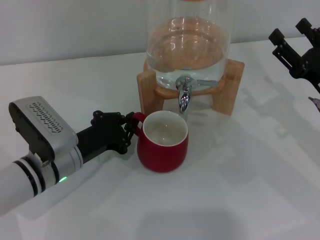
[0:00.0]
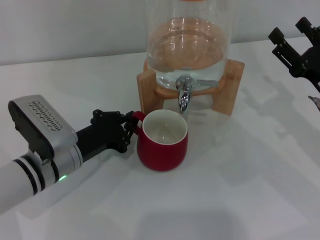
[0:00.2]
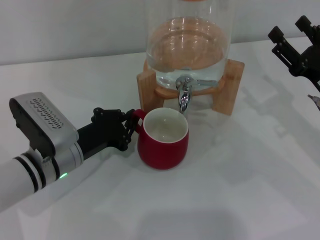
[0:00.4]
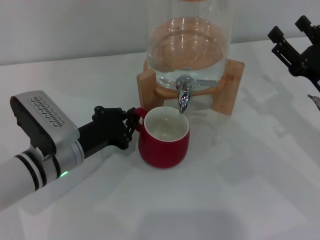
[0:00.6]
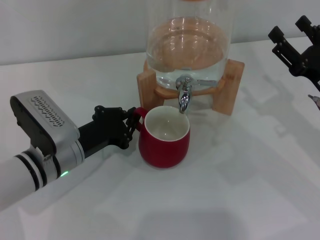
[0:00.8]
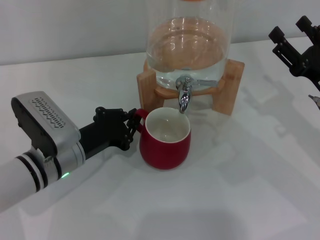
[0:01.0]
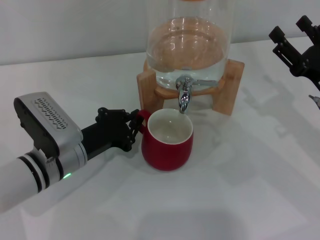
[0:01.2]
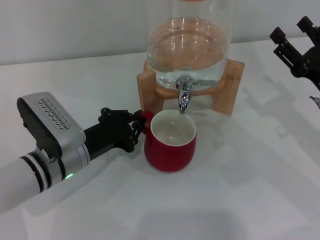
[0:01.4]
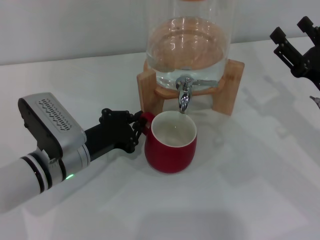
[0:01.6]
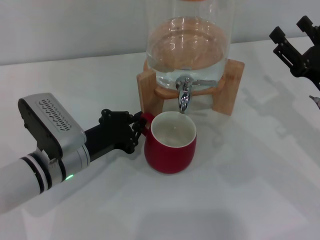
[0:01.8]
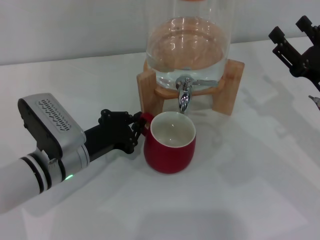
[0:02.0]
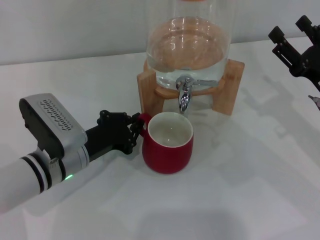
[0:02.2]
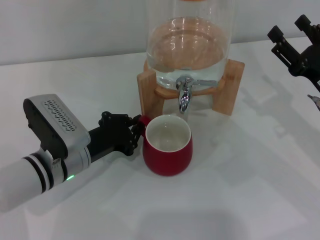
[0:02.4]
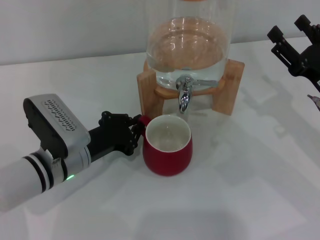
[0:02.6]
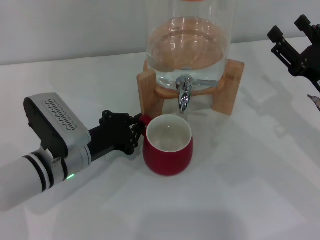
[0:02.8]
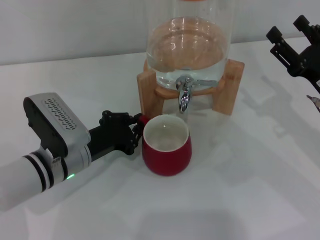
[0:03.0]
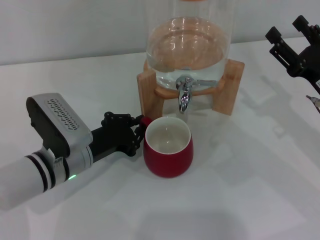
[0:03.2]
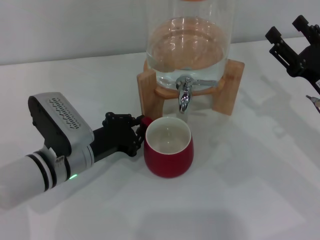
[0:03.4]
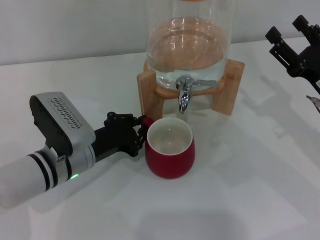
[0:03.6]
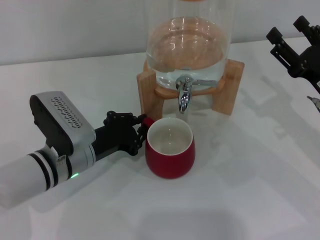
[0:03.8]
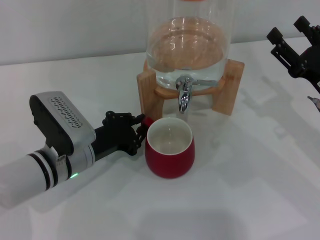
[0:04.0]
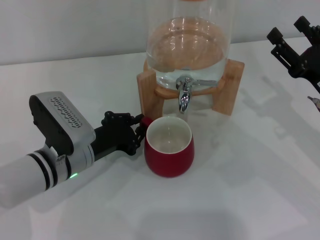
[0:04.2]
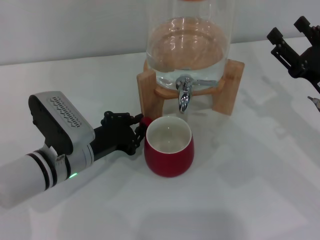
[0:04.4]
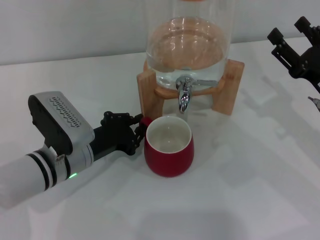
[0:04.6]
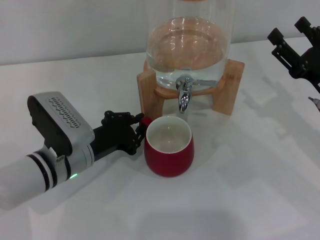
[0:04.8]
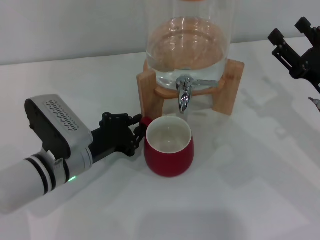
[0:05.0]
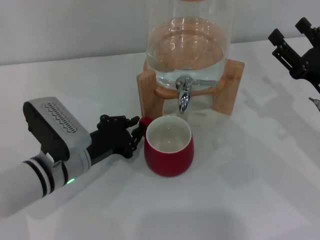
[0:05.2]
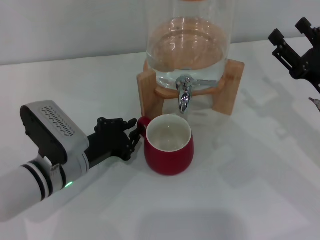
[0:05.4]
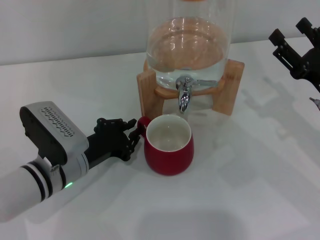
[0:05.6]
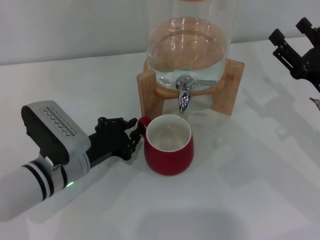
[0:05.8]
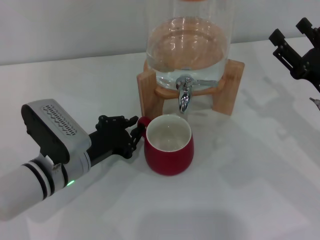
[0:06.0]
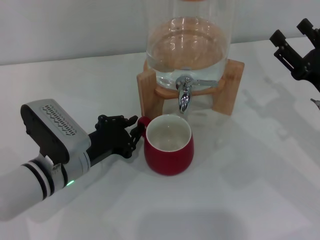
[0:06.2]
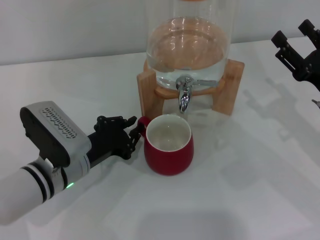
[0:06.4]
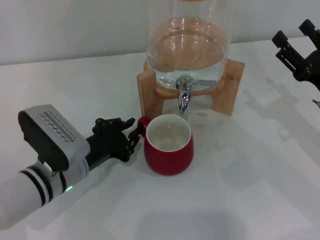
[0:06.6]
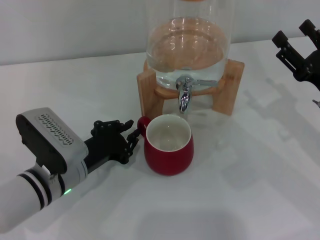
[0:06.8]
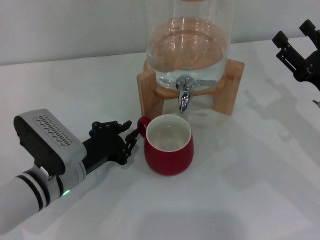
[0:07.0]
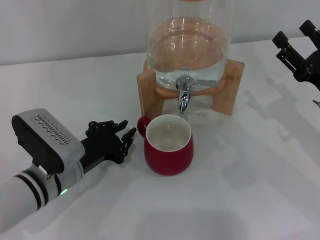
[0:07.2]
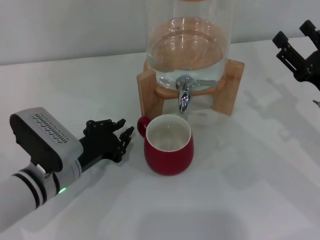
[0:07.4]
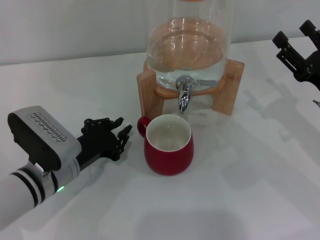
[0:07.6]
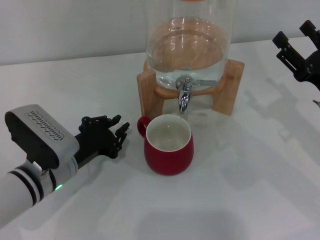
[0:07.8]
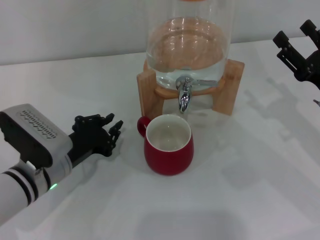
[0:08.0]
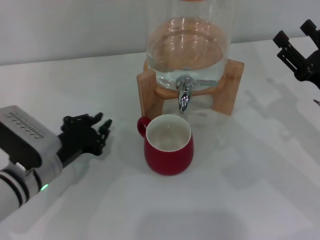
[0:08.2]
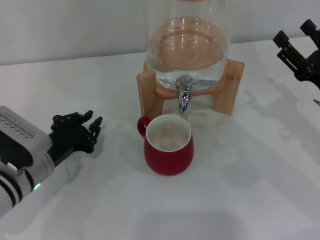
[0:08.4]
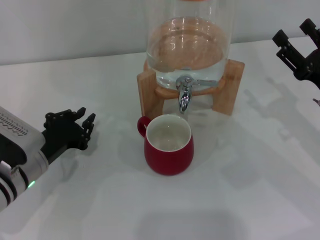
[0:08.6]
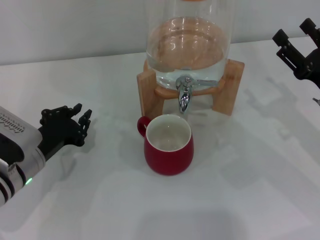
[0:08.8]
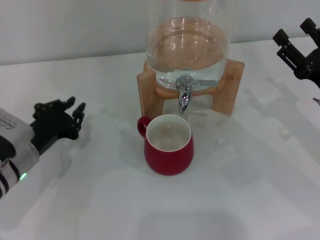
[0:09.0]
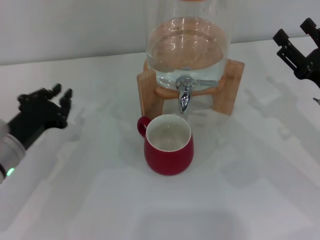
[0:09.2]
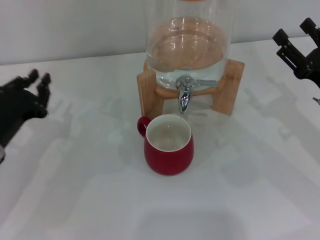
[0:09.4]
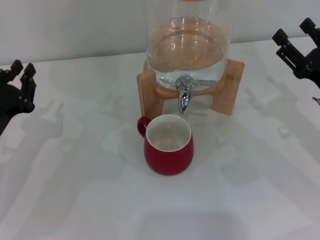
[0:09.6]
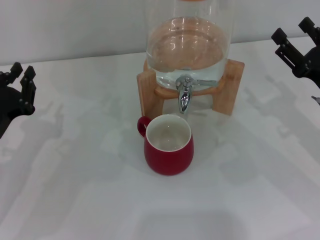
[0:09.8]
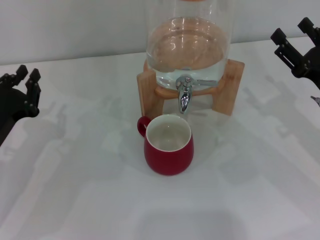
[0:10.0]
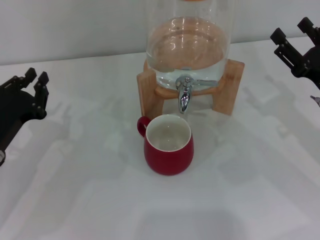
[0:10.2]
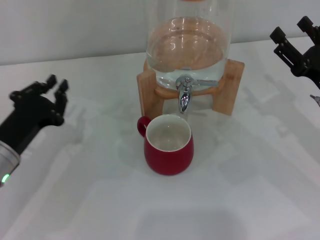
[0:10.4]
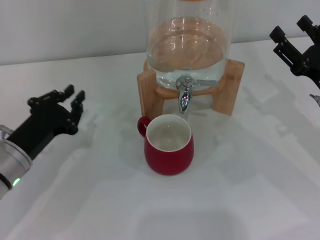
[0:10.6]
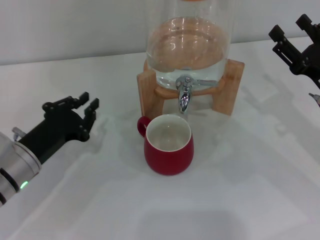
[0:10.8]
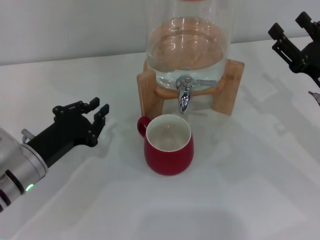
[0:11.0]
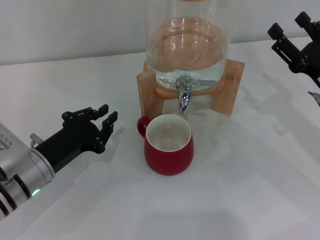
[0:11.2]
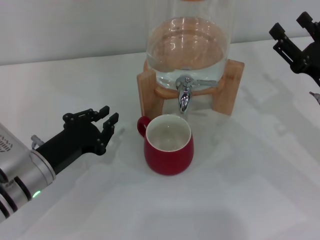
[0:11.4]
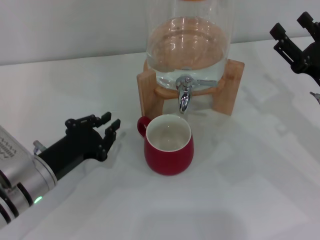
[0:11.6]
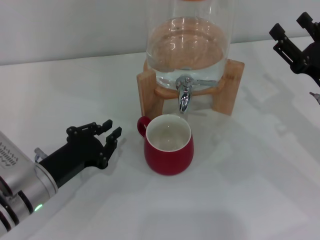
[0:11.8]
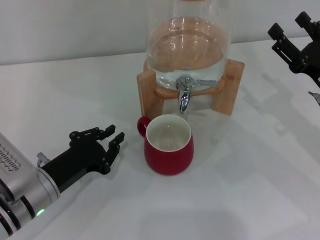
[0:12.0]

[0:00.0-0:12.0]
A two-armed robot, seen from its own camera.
Task of the whole recording: the left gripper pick up the red cup and place it horizontally under the faucet, the right gripper turn on the faucet to fill the cup, and then turn off the faucet.
Step, 0:00.0 to 0:07.6: Move the cup beneath the water dispenser nozzle with the left gripper.
0:00.0 to 0:03.0: Both grippers stay put.
0:03.0 to 0:04.4: The two grippers keep their place.
0:04.4 to 0:07.6: There are only small adjustments of the grippers.
0:07.6 to 0:09.0: The left gripper ends up some 5 cm from where it was.
0:10.4 to 0:12.0: The left gripper moves roughly 5 cm.

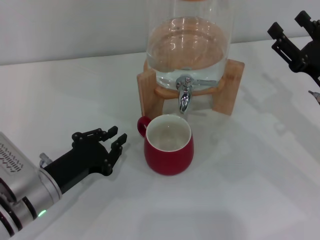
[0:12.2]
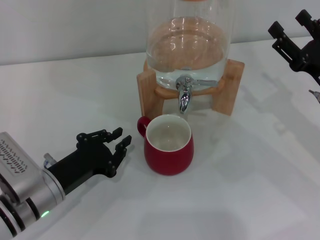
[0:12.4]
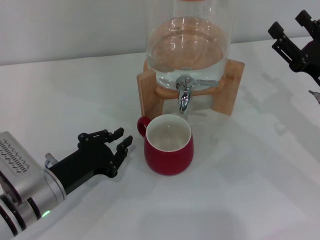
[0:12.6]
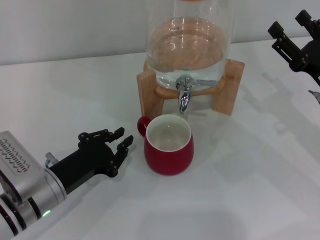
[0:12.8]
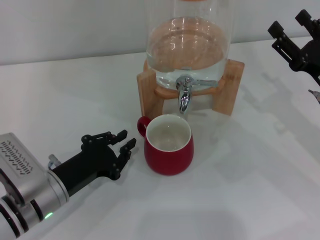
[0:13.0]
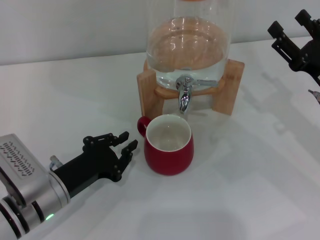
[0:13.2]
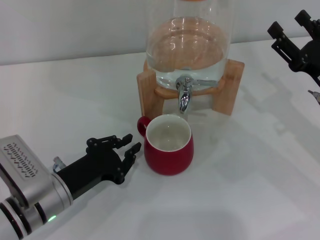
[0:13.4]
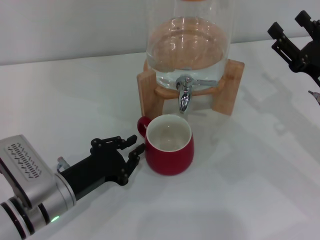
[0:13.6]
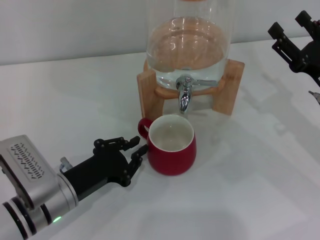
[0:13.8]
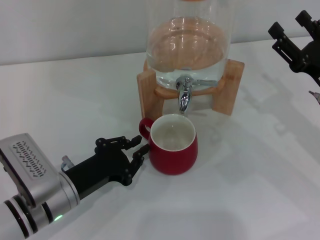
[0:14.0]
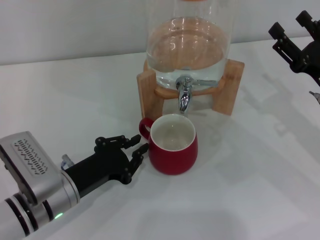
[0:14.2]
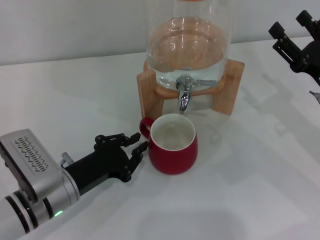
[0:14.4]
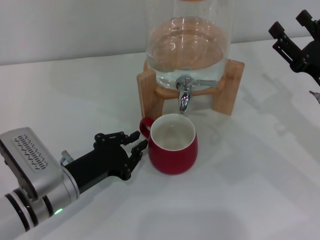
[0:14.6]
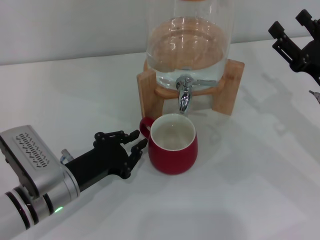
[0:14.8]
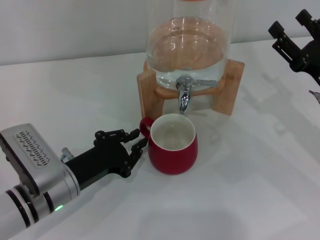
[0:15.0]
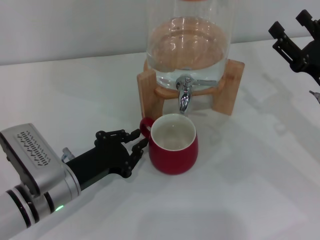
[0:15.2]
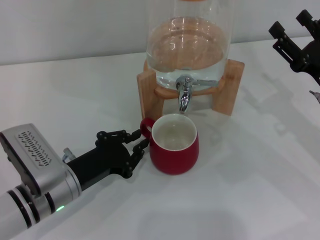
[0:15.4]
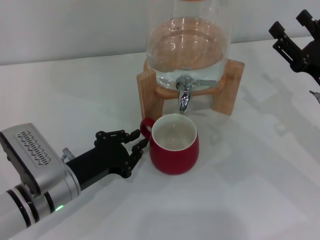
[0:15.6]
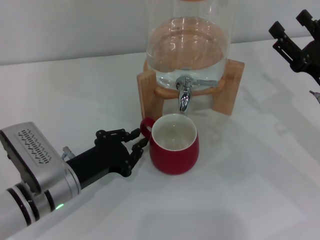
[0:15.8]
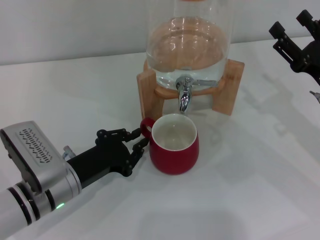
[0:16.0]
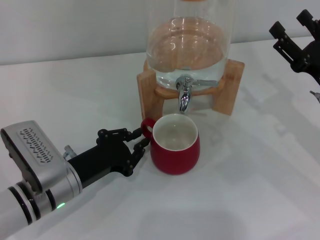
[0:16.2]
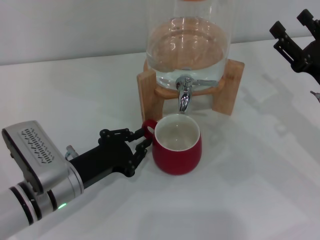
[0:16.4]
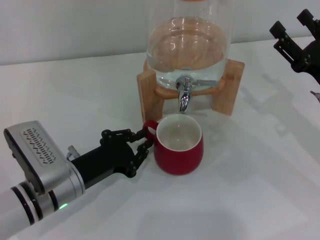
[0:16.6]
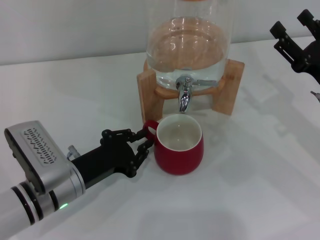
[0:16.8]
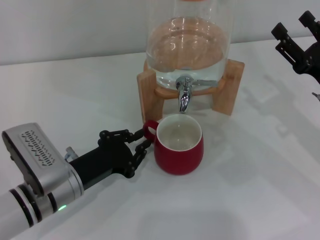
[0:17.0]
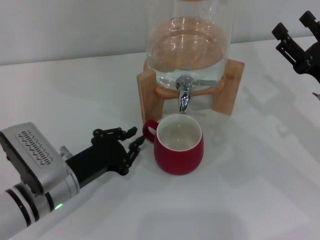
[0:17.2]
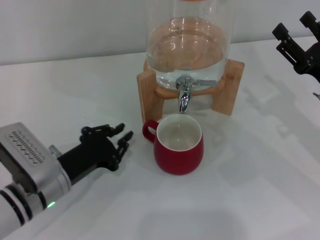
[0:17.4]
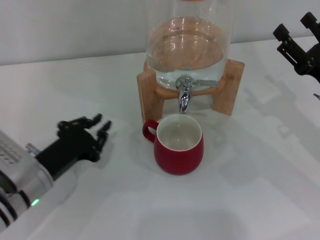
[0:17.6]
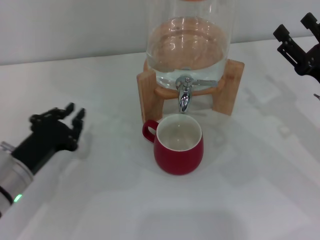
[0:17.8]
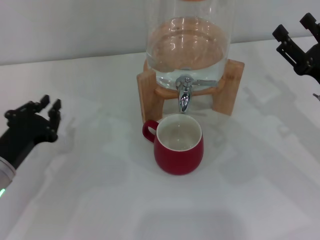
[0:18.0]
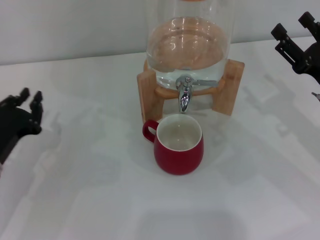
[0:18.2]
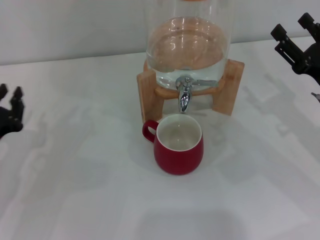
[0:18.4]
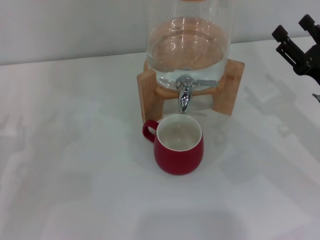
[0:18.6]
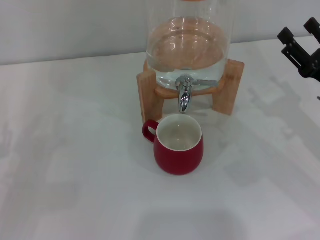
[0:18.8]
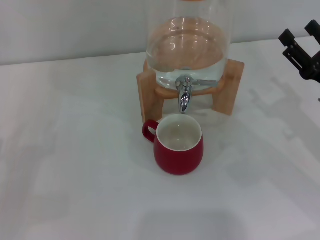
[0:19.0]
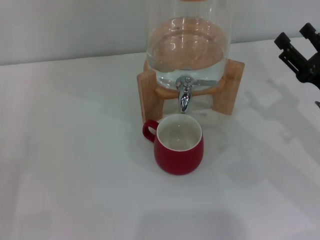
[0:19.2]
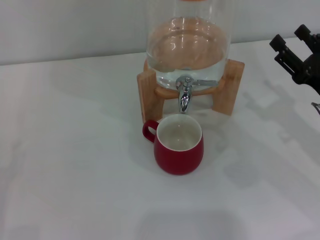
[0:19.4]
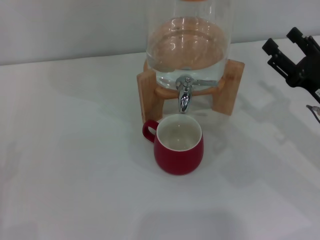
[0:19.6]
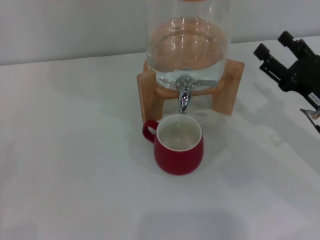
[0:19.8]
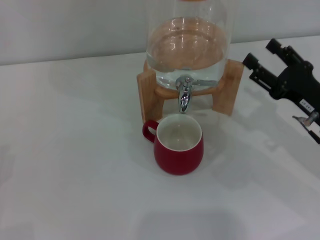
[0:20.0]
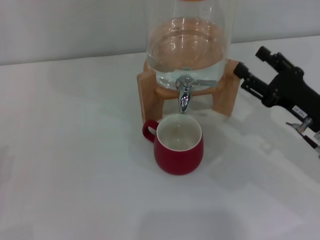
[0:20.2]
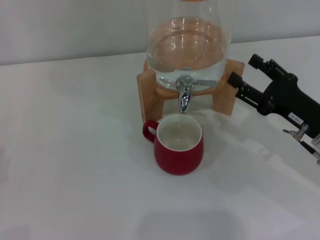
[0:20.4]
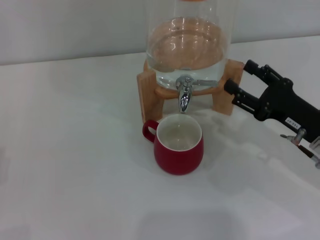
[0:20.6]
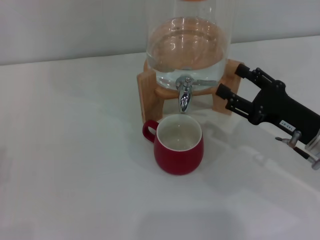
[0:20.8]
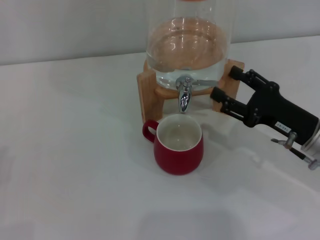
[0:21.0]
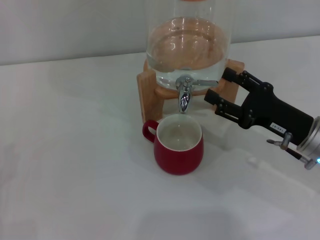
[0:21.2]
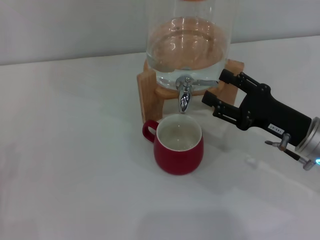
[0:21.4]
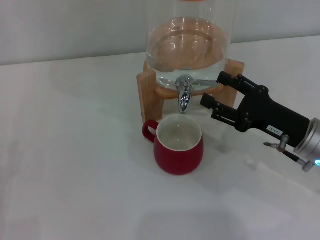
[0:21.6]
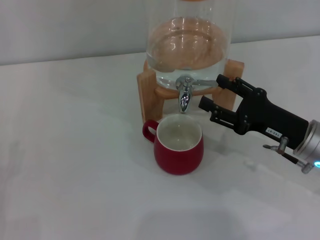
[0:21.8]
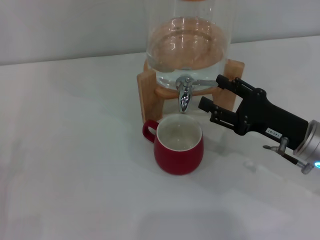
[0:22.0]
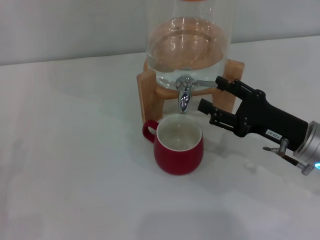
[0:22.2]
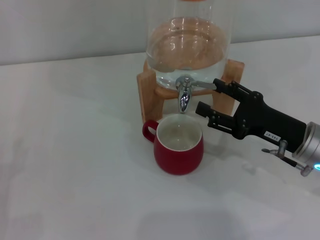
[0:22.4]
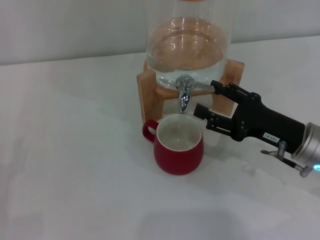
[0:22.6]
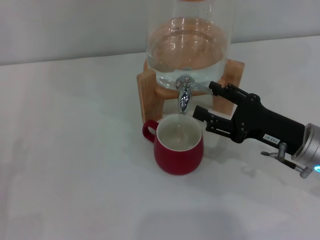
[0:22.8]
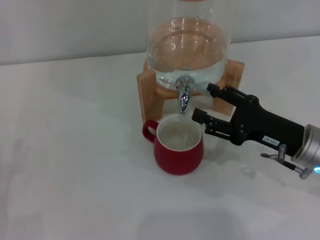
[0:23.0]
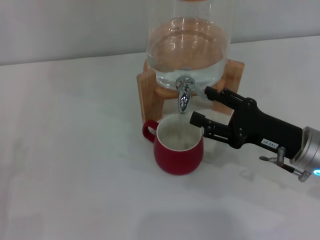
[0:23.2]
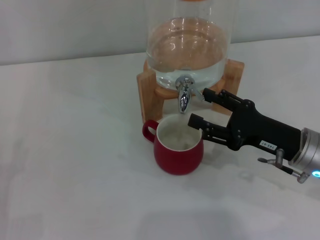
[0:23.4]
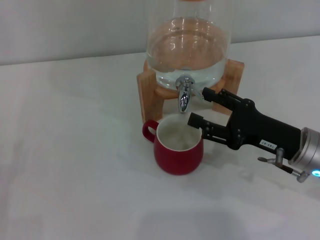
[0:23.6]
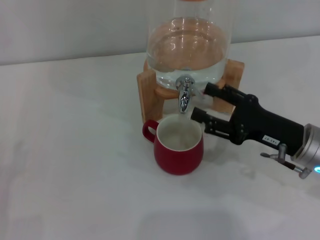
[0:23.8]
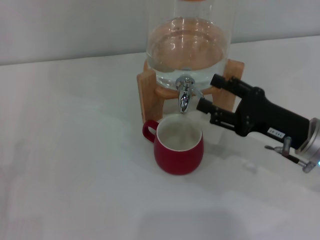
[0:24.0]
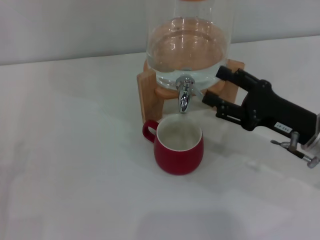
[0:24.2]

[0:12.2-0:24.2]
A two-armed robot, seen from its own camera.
Task of the whole recording: the left gripper pick up the red cup and place it horizontally under the faucet, the right gripper turn on the faucet to fill the cup, and then turn off the faucet.
Step, 0:12.2 to 0:23.8: Open the dispenser valve and fill the cup with water with the right gripper.
0:12.2 to 0:15.2: The grippers make only small movements.
0:15.2 to 0:16.6: Both grippers stay put.
0:16.6 to 0:18.2: The left gripper shifts about 10 cm to the left.
0:18.2 to 0:19.8: The left gripper heads to the left and backward, covering about 15 cm, and opens its fingers.
0:19.8 to 0:21.2: The grippers stay close to where they were, moving slightly.
0:21.2 to 0:24.2: There are only small adjustments of the grippers.
